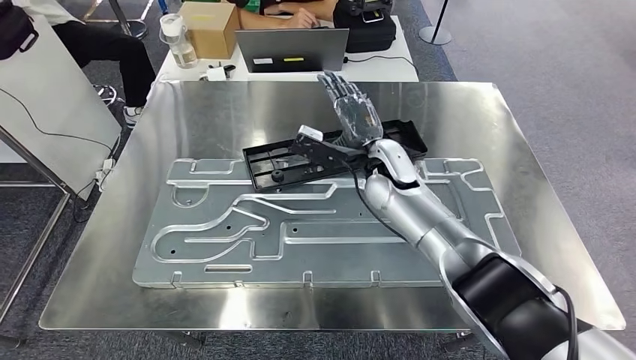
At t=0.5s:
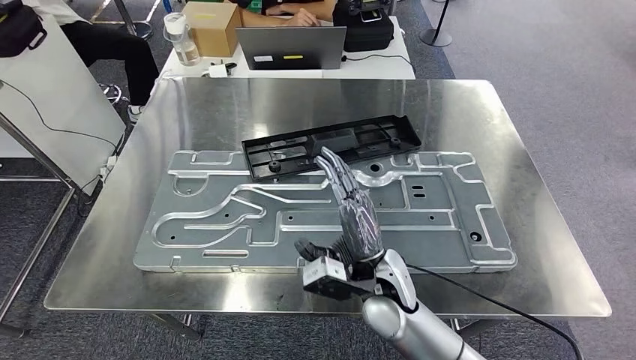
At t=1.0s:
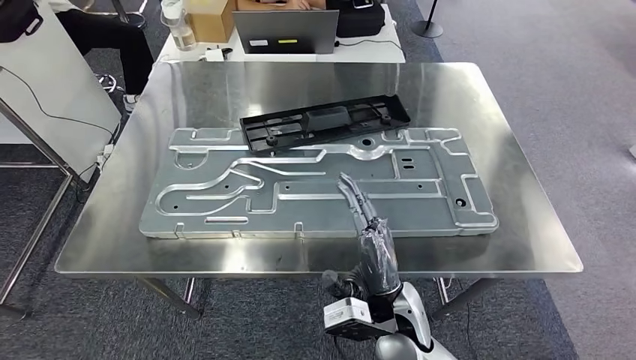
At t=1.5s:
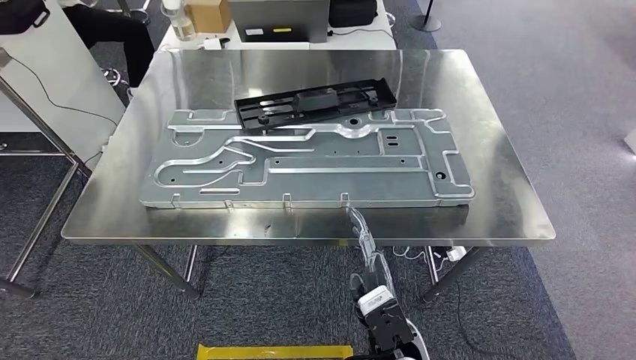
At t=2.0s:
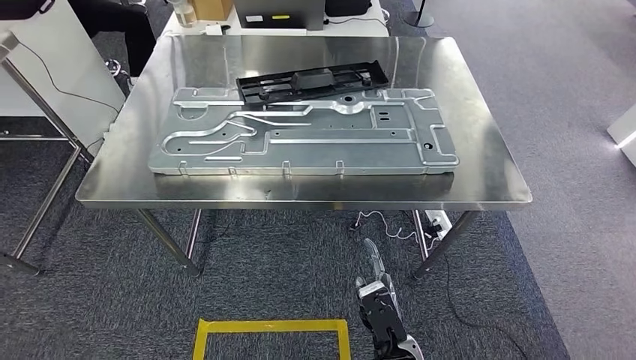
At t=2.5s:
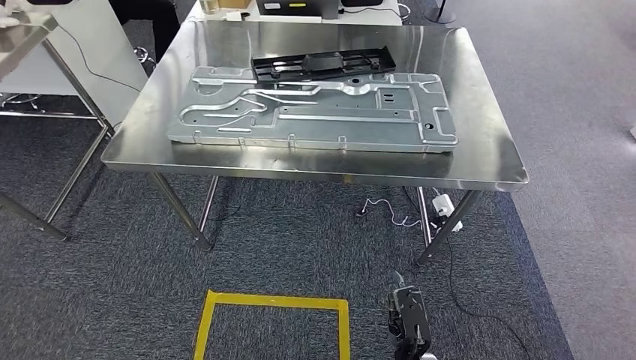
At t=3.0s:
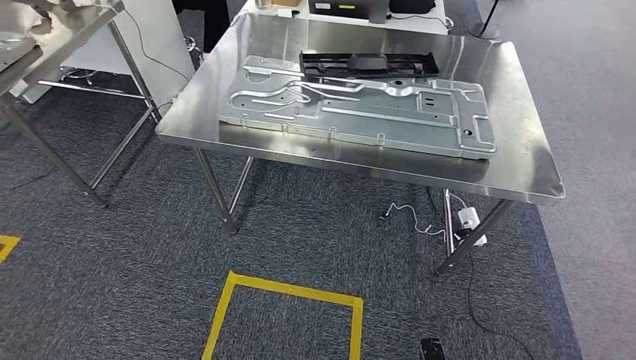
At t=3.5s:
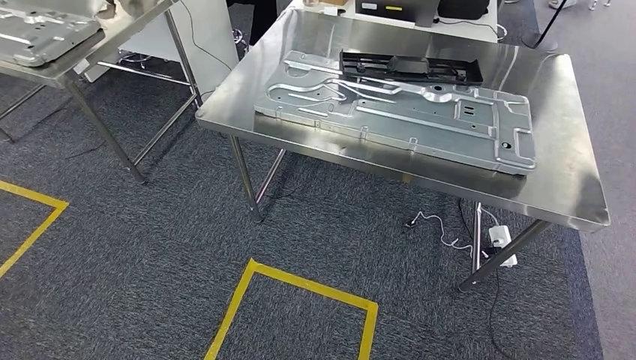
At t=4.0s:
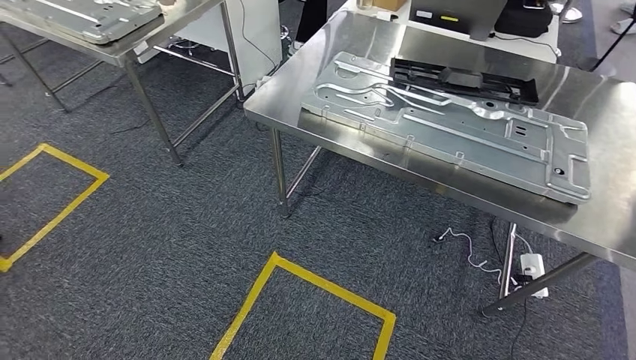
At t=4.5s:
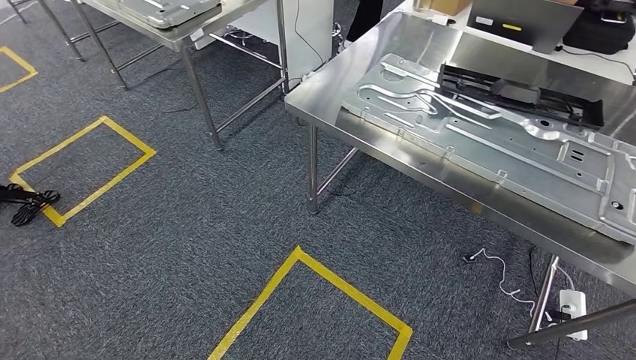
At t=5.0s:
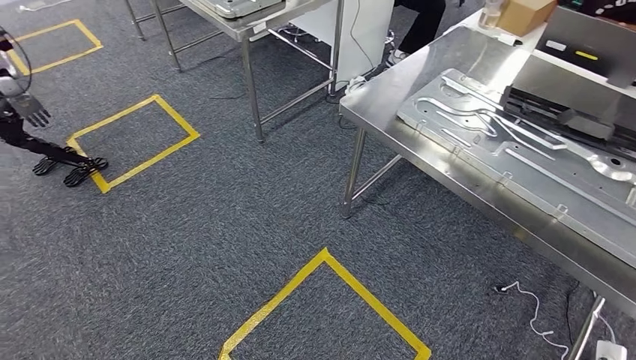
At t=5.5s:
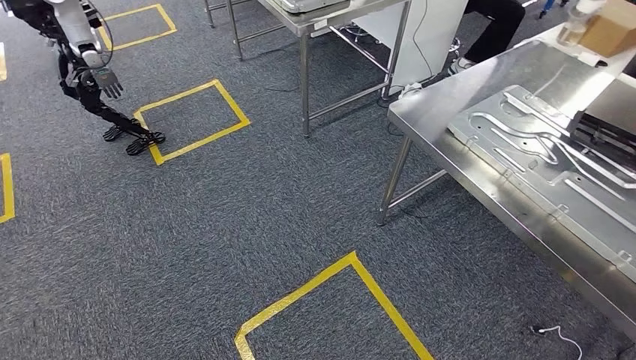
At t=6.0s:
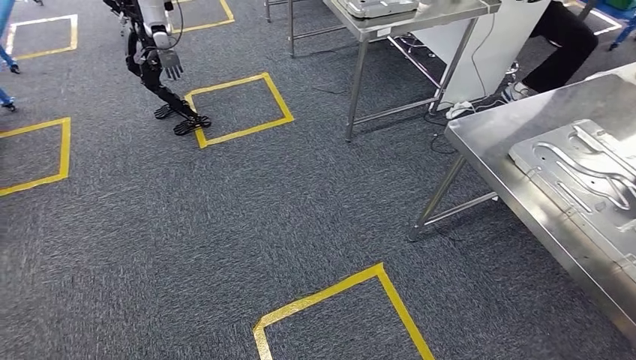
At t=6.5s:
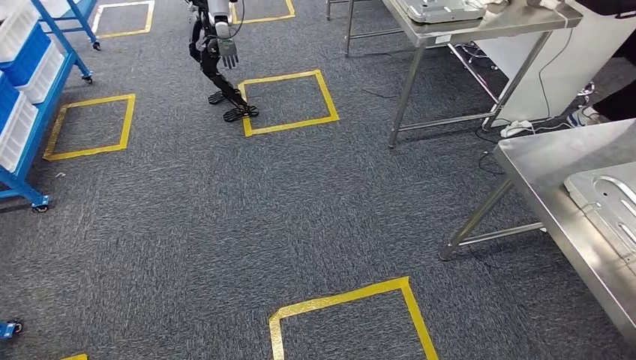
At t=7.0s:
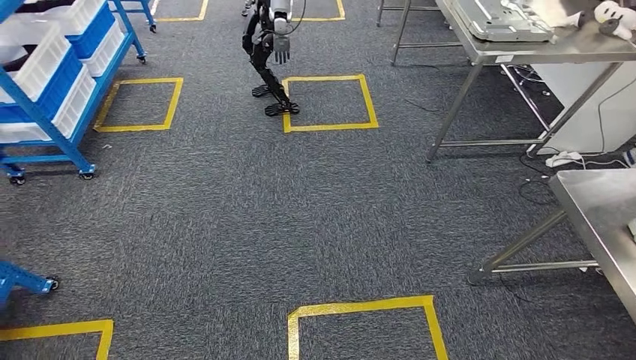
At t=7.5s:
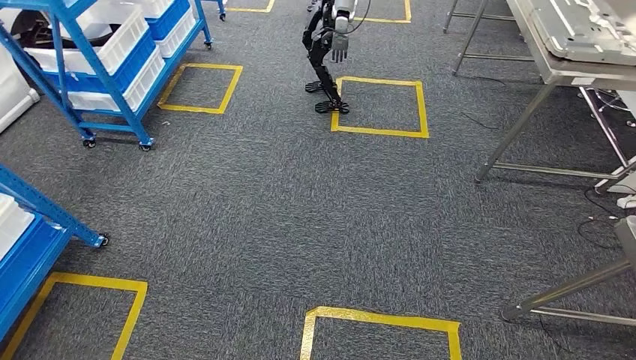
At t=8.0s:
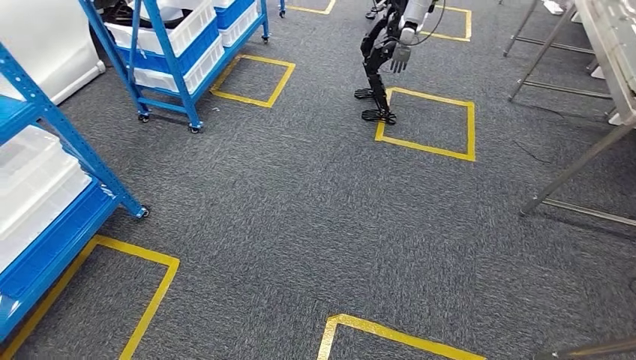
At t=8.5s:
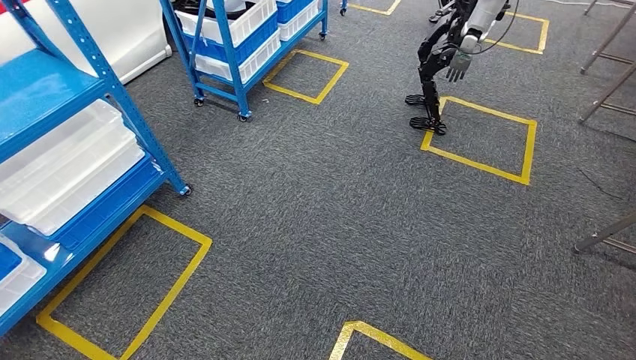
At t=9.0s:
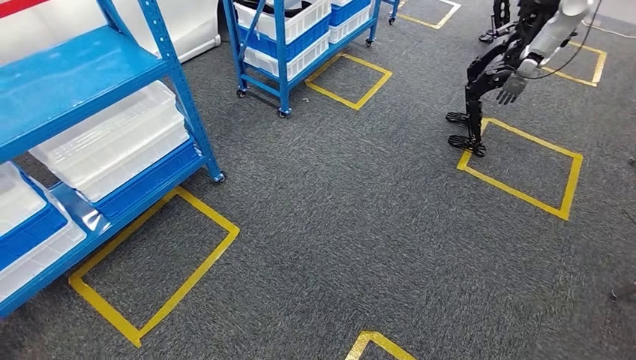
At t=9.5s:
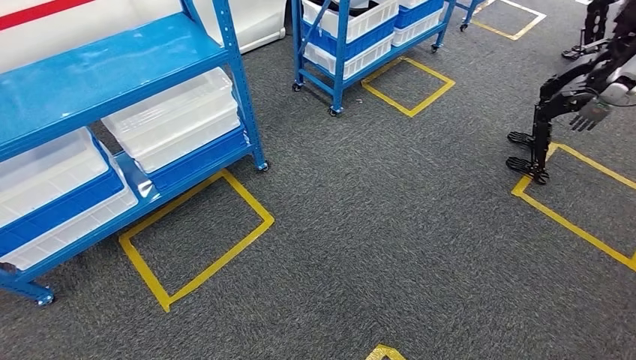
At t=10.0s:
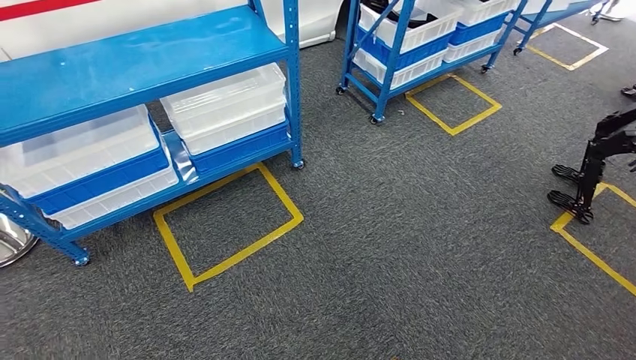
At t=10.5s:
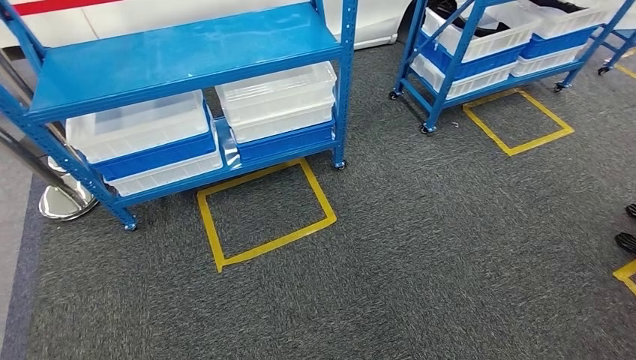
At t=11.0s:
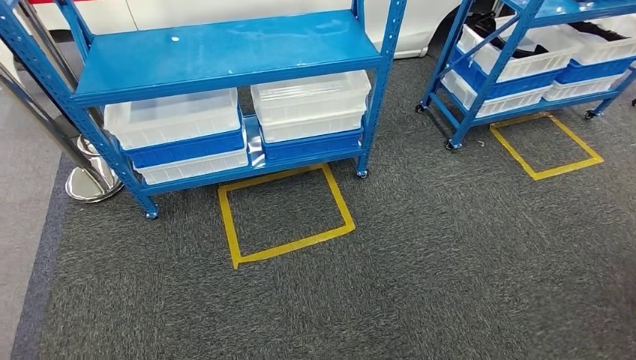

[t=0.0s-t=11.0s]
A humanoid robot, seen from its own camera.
Step, t=0.0s to t=2.5s: Insert the large material into the corresponding slot on the workbench.

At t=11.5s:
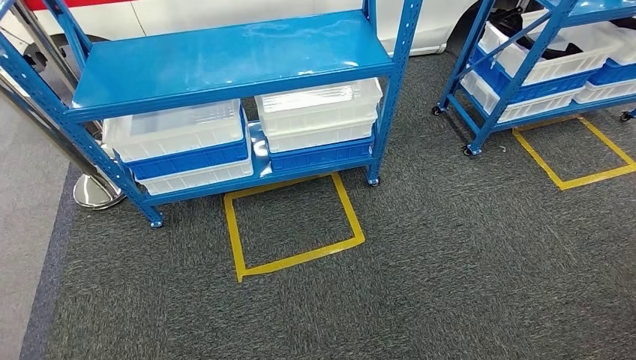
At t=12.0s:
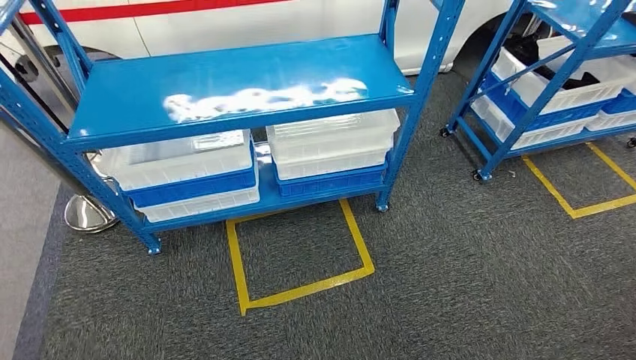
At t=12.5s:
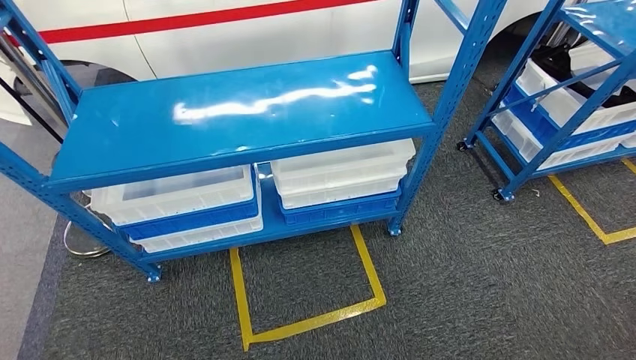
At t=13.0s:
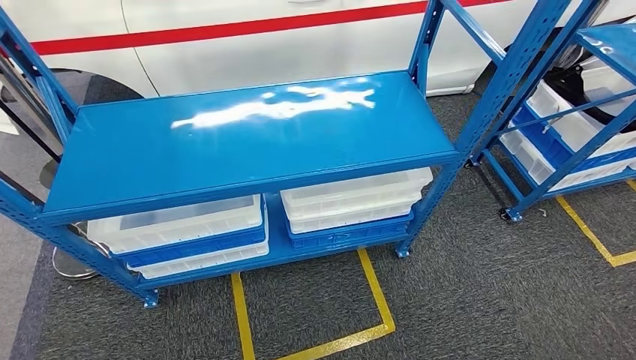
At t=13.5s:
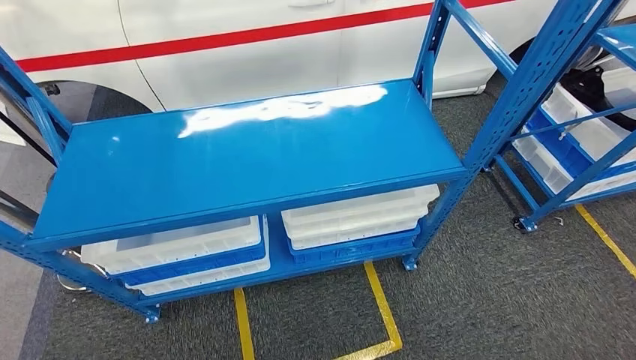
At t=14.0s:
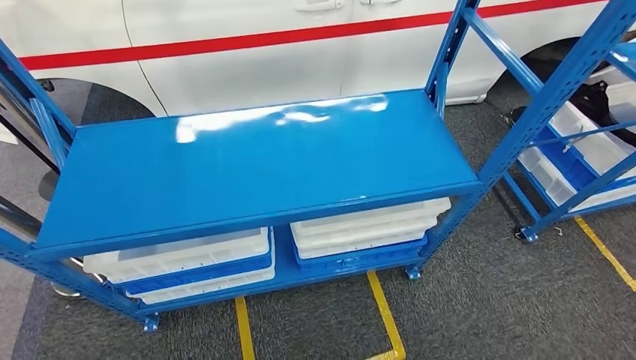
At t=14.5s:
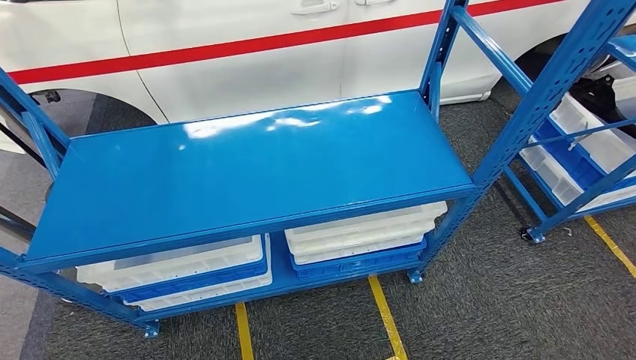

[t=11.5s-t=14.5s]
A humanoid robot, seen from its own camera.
Step, t=11.5s to t=14.5s: Return to the initial position at the shelf.
